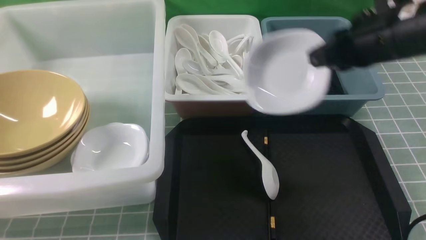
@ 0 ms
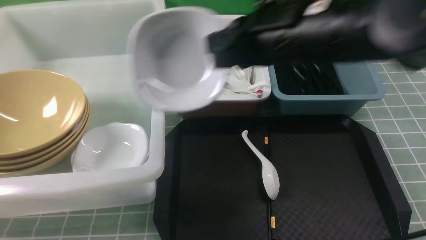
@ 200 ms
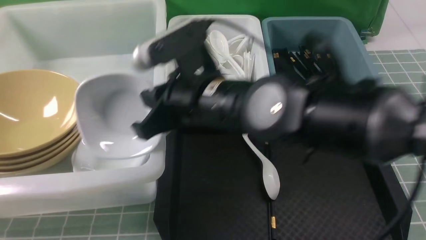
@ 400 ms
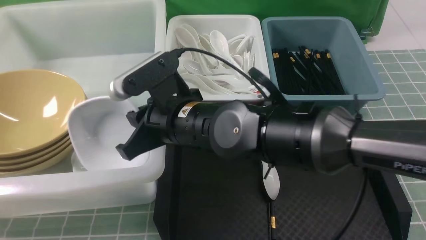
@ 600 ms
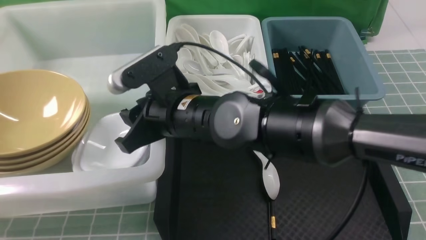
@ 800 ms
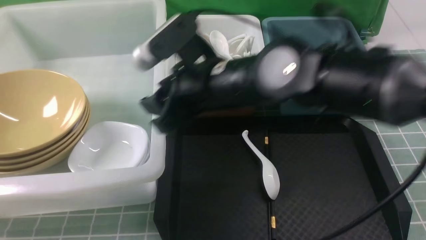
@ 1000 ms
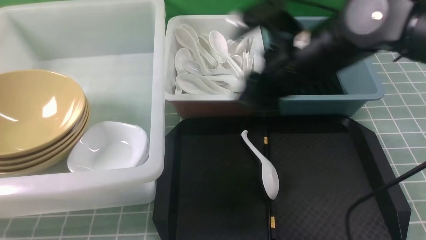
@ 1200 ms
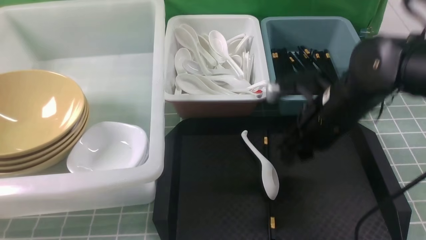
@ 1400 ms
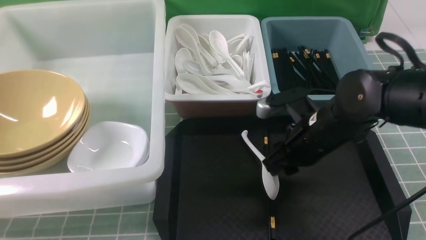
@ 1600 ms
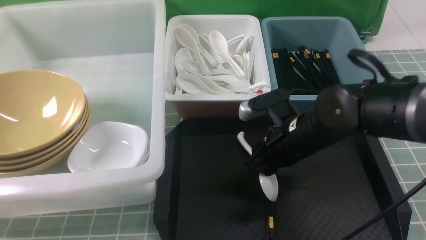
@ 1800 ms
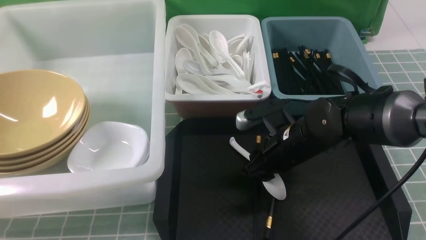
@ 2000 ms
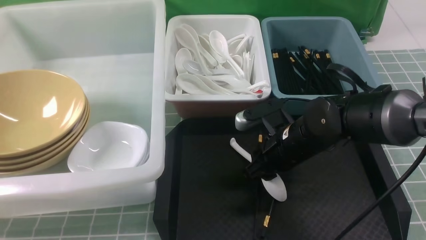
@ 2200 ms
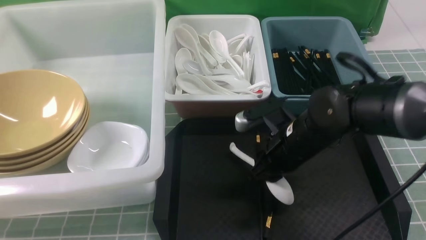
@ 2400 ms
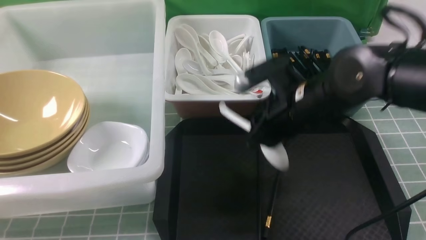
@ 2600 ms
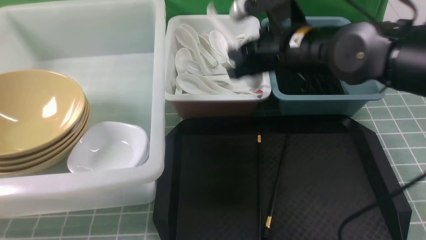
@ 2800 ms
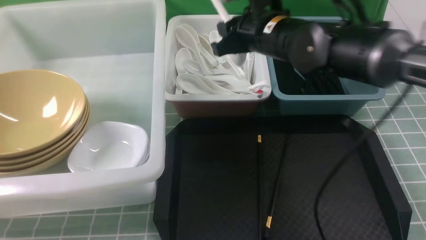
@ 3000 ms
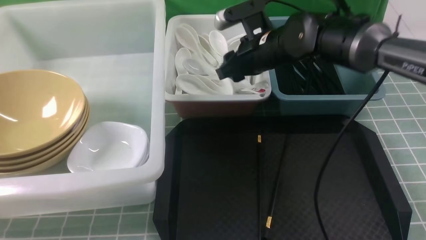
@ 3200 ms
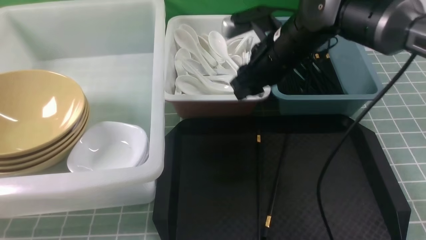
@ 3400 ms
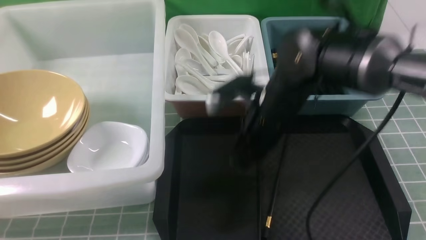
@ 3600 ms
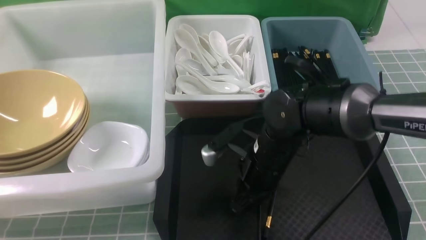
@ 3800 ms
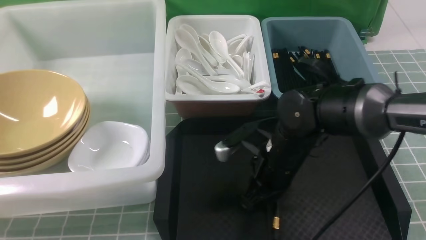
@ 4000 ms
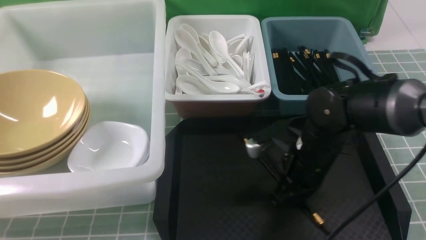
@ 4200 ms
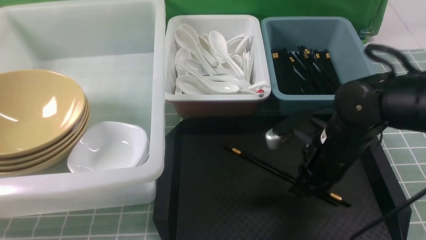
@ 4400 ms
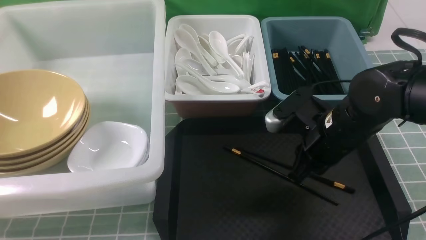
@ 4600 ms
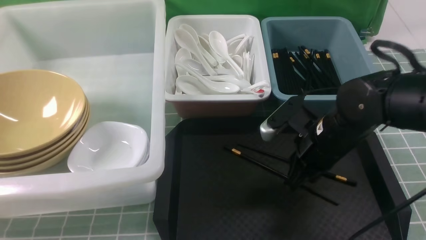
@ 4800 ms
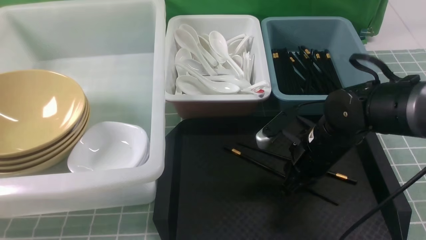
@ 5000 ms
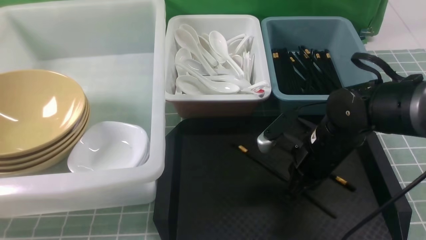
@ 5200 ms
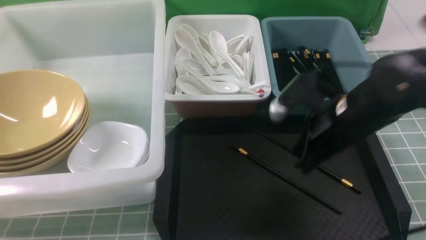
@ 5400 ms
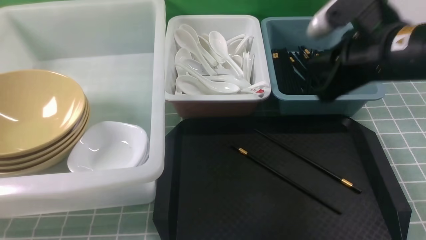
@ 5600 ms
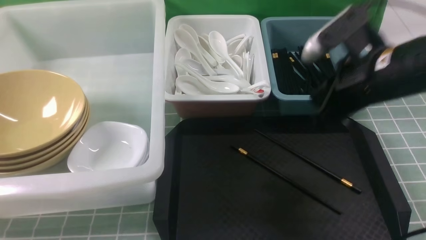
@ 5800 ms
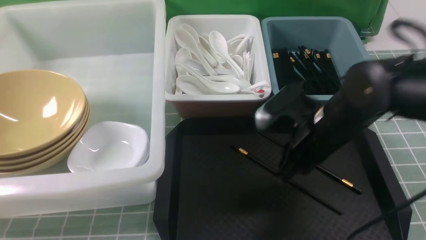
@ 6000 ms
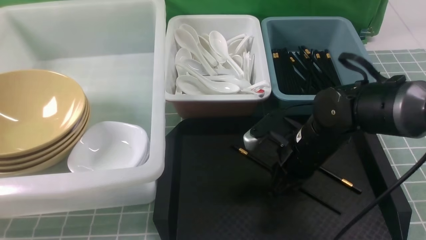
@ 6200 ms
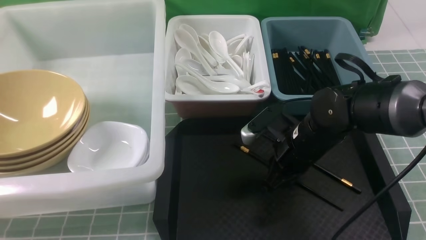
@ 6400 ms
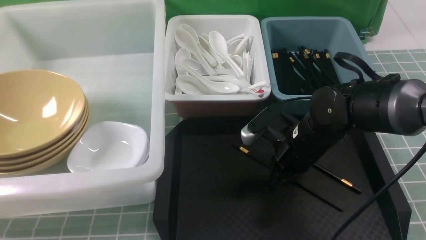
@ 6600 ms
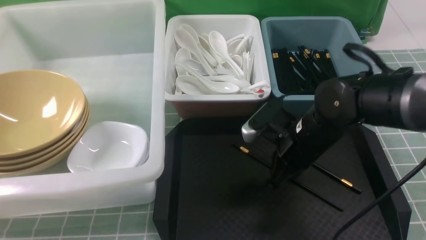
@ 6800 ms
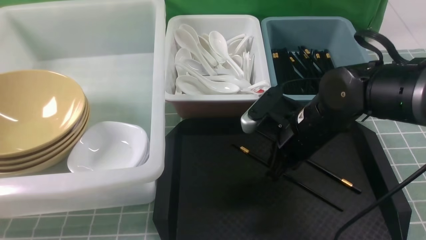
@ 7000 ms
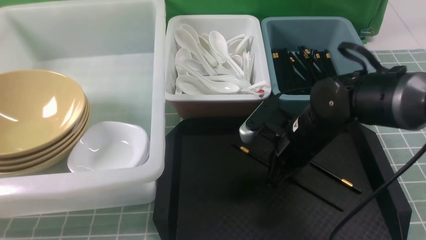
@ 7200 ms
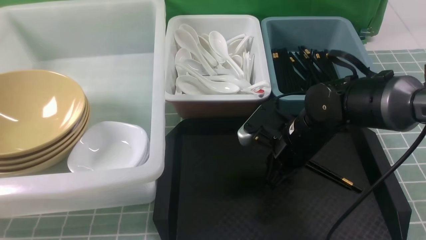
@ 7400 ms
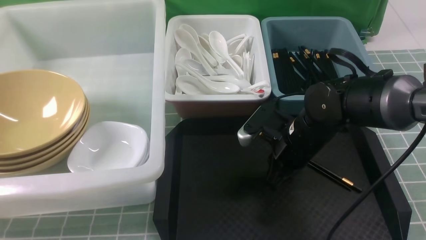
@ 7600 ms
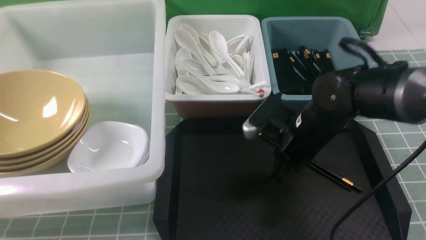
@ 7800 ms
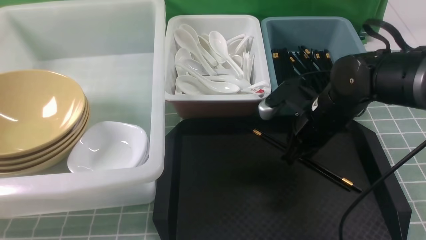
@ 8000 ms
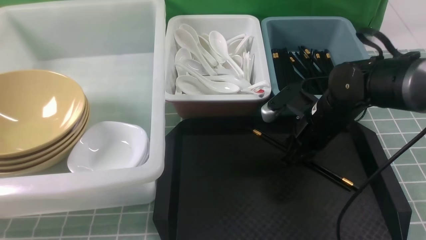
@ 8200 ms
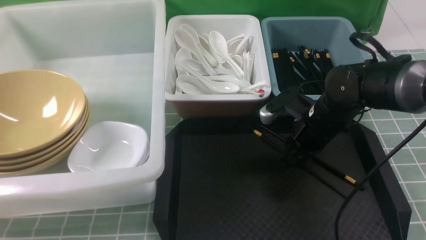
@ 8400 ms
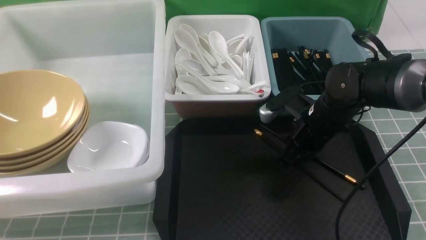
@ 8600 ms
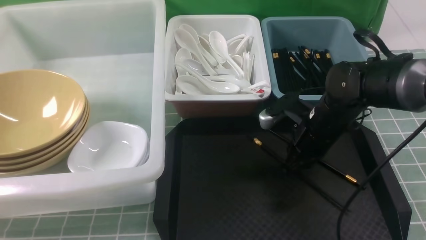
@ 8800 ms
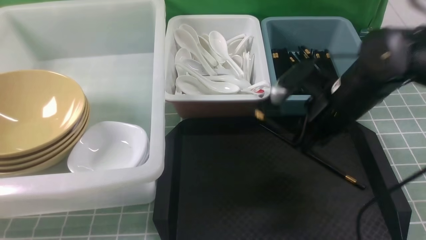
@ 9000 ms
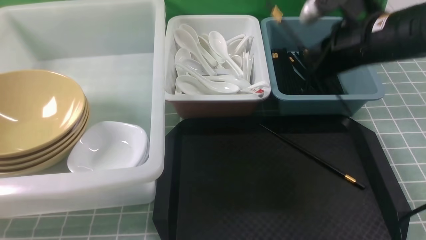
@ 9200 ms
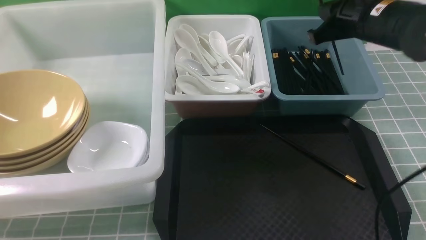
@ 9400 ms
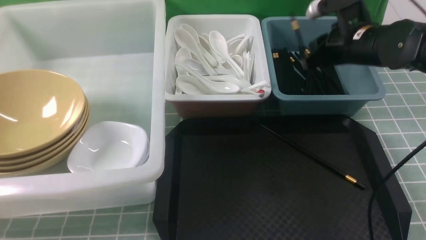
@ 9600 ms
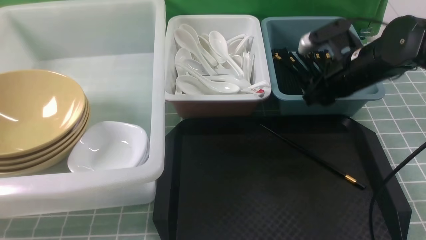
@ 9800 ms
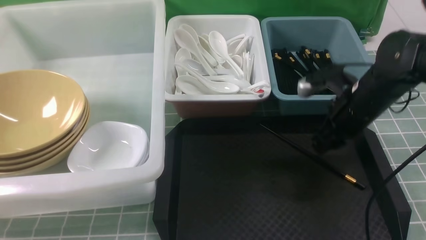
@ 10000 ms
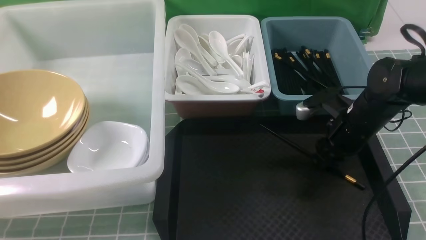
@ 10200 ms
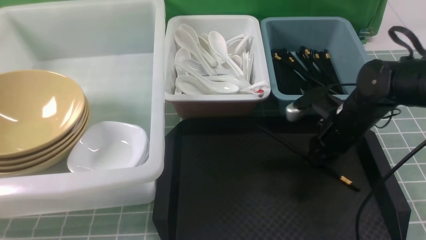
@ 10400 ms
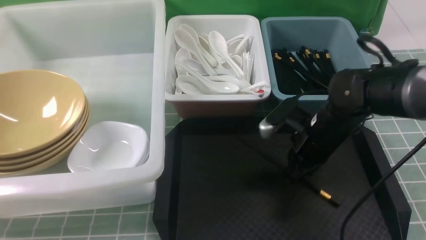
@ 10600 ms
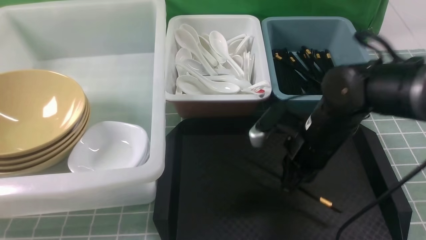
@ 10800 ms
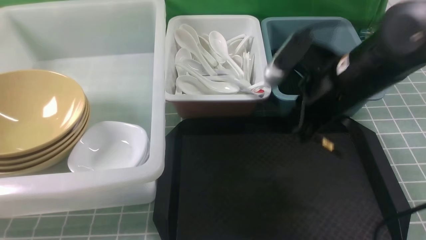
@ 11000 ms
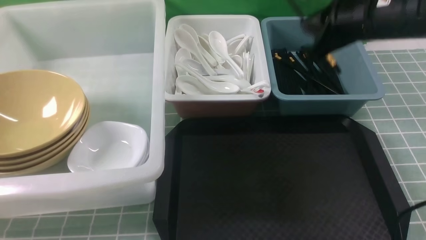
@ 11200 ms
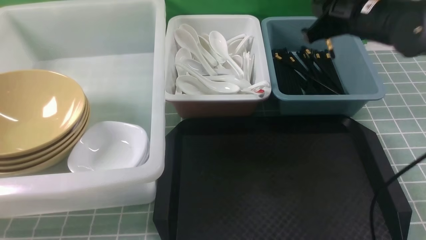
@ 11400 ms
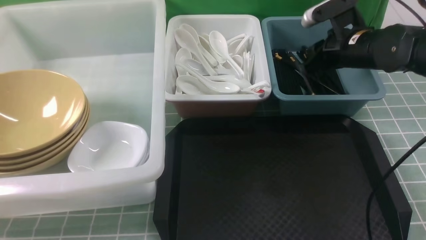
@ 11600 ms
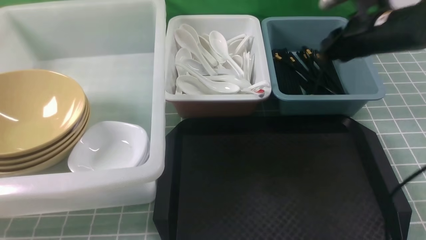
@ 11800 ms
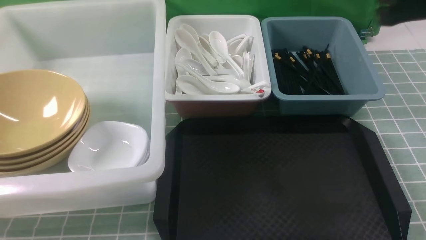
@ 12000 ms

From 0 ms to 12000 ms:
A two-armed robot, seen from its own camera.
Task of the whole recording: on blue table put chopsticks spoon bowls plates into blue grey white boxes.
Step, from 0 ms to 1000 ms: use the right arm to put the plate into the large storage box on the left.
Step, from 1200 ms to 2400 ms: use the right arm to grab the soup spoon in the middle.
Step, from 2800 ms to 3200 ms: use the right arm to put the soup spoon into the small storage box in the middle.
Step, from 3400 ms to 9200 ms: use the right arm to grab a chopstick.
Step, from 9400 ms to 9800 ms: use the right arm to put a chopstick into the small storage box on the right.
Step, from 10000 ms to 11200 ms: use the right arm to grab a chopstick.
Step, from 11400 ms to 11800 ms: use the right arm to put a chopstick into the small storage box on the right.
From 0 ms to 1600 ms: The right gripper goes about 15 cm downward, reaches approximately 20 cm to the left, then returns, and opens.
From 1600 ms to 3000 ms: The right gripper travels forward and upward by about 15 cm.
From 3000 ms to 4400 ms: The right gripper heads backward, downward and to the right, covering about 15 cm, and closes up.
From 4400 ms to 6000 ms: The right gripper goes upward and returns, about 10 cm each way.
From 6000 ms to 7600 ms: The right gripper shifts by approximately 5 cm.
From 7600 ms to 9000 ms: The right gripper shifts roughly 10 cm upward, and opens and closes again.
From 9000 ms to 10400 ms: The right gripper heads downward, covering about 10 cm, and opens, then closes again.
From 10400 ms to 12000 ms: The right gripper moves up and down over about 25 cm, changing direction 2 times.

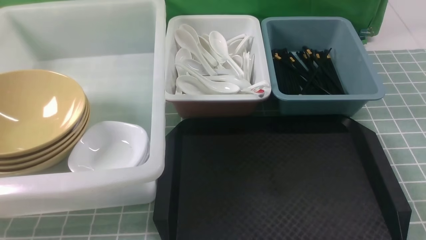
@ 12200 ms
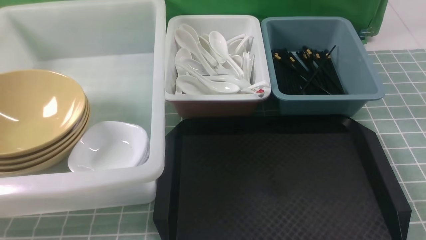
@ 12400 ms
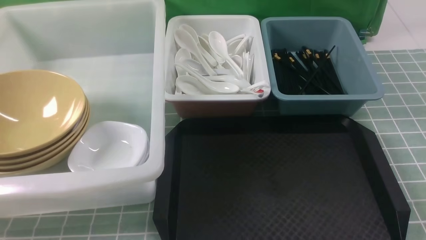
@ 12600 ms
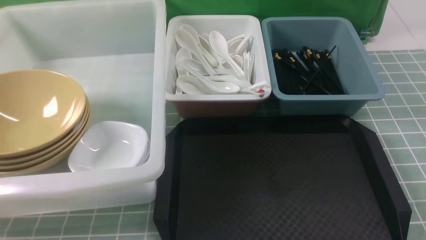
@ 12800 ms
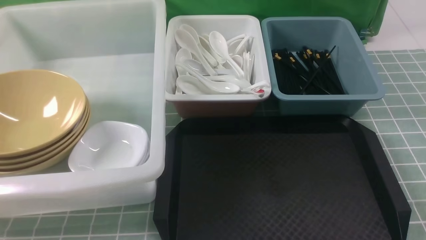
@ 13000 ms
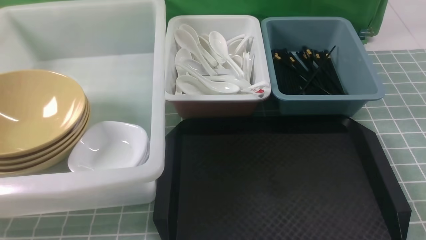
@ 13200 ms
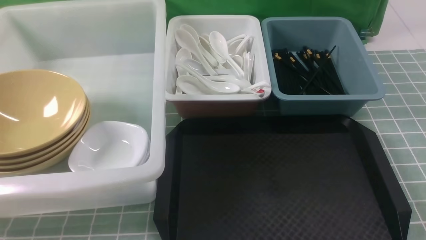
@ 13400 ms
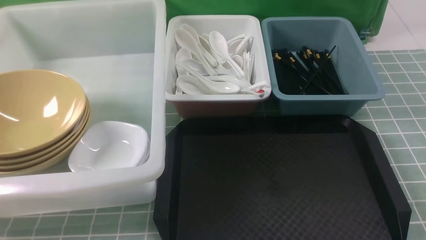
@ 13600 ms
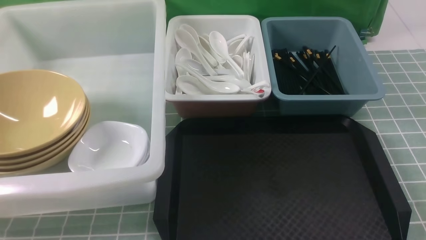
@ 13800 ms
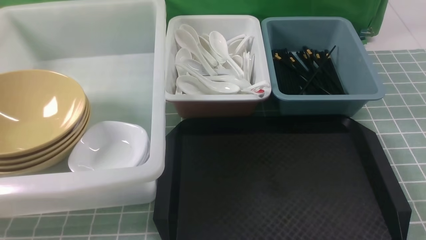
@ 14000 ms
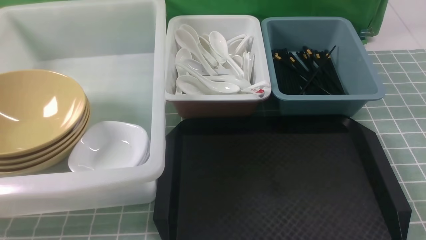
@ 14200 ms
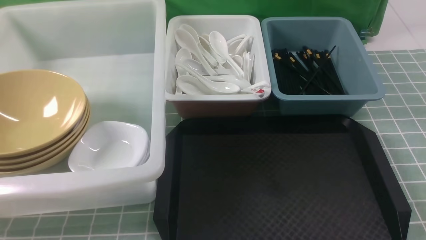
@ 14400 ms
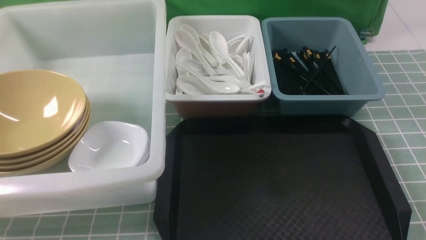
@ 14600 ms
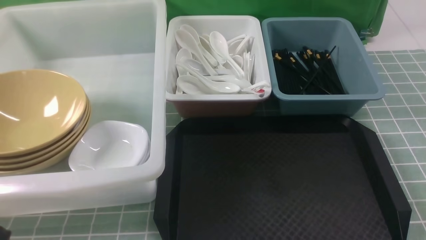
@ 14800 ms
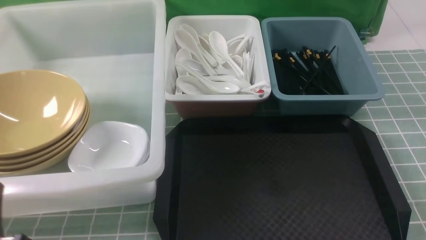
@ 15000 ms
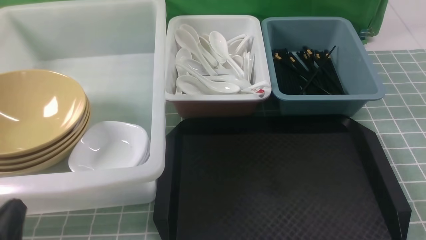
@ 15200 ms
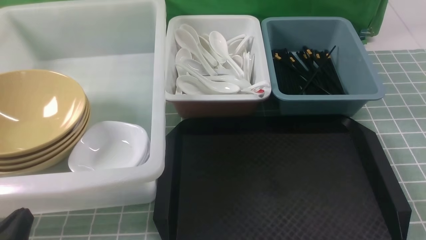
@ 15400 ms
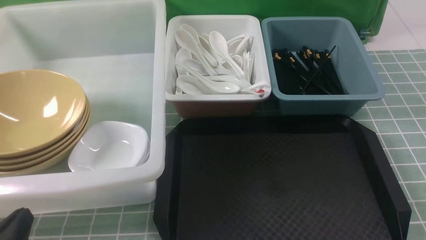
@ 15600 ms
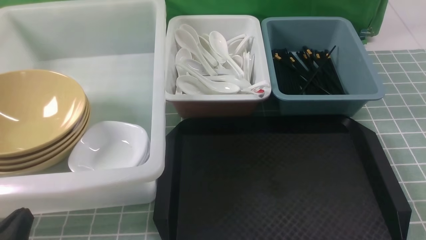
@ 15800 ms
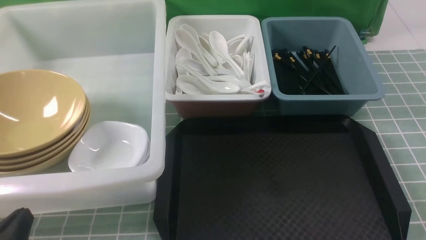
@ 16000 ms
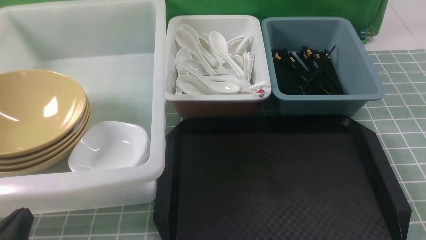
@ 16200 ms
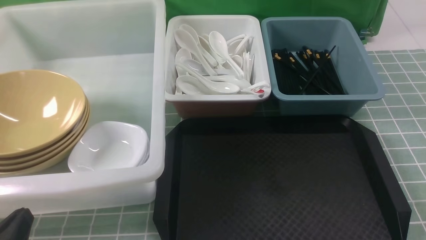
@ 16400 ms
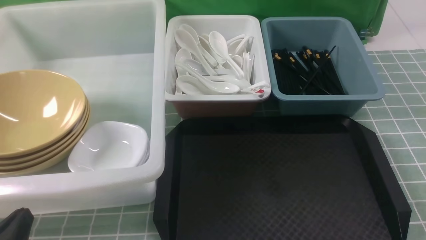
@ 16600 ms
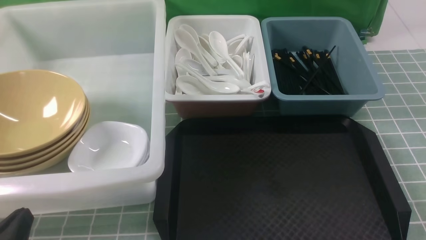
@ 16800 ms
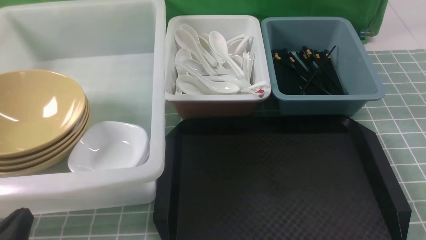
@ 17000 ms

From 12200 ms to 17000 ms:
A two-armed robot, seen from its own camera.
Task of the whole recording: on blue table put chopsticks spoon bowls plates into blue grey white boxes.
From 13800 ms to 15400 ms: The left gripper goes approximately 10 cm downward.
From 15400 ms to 17000 ms: Both grippers stay put.
